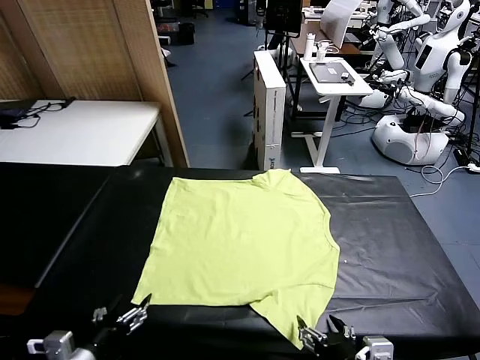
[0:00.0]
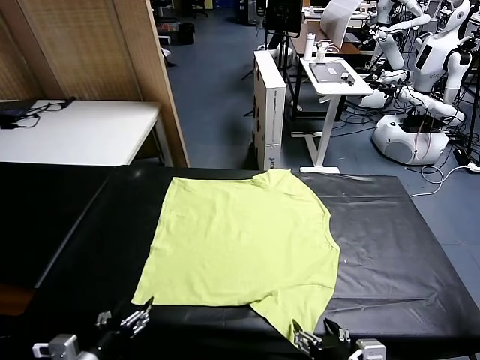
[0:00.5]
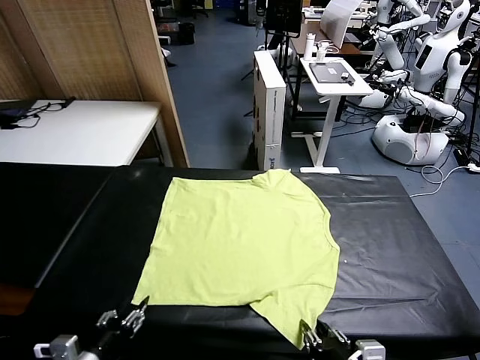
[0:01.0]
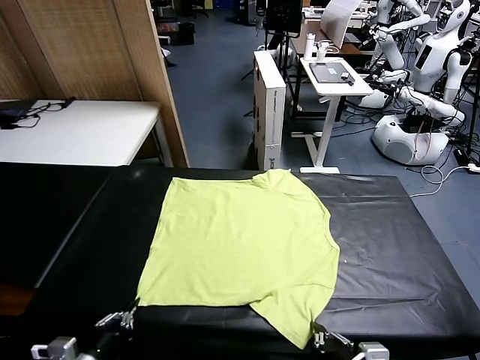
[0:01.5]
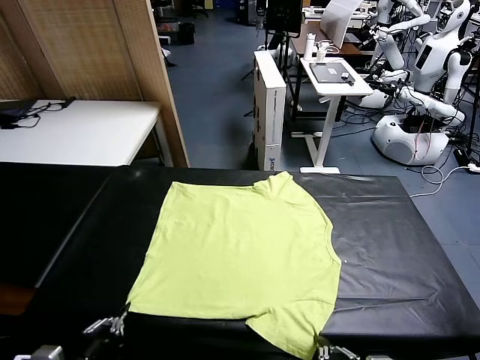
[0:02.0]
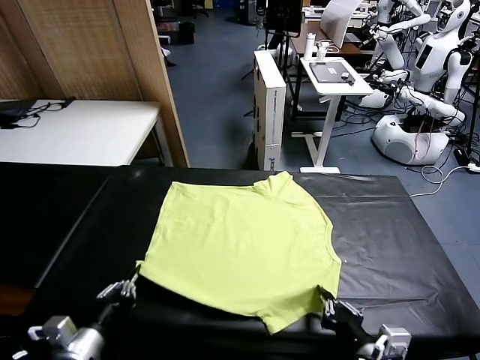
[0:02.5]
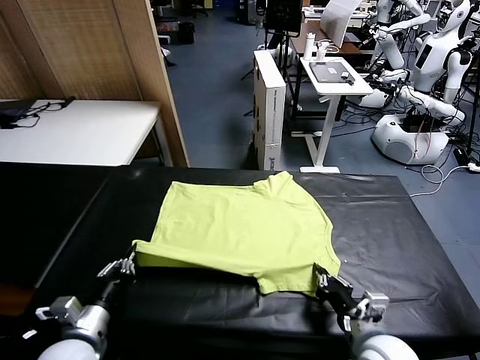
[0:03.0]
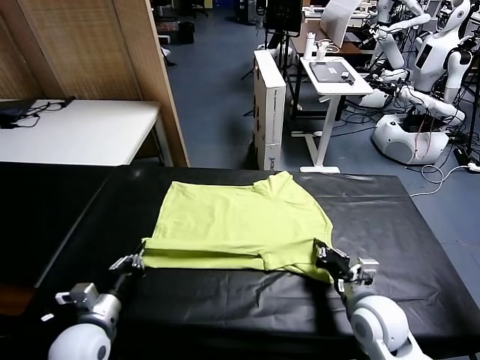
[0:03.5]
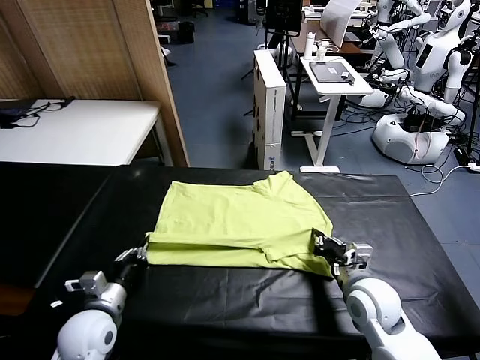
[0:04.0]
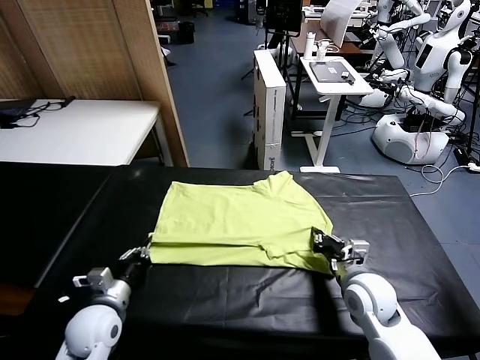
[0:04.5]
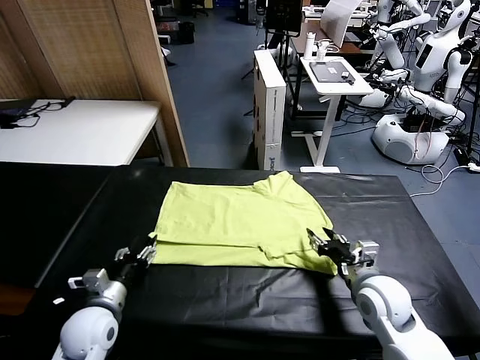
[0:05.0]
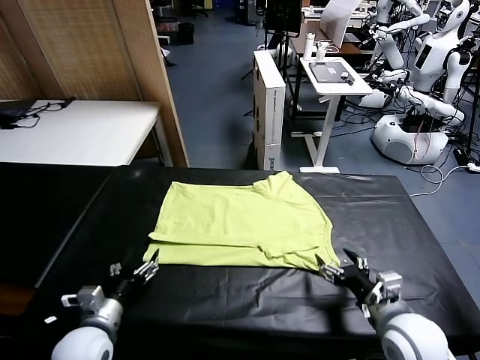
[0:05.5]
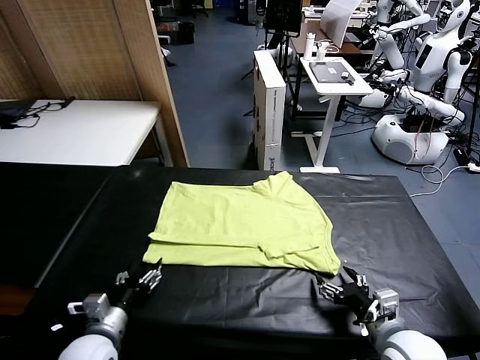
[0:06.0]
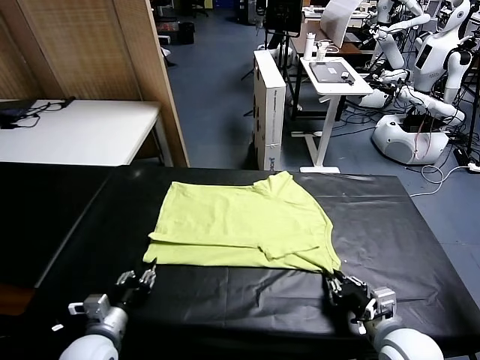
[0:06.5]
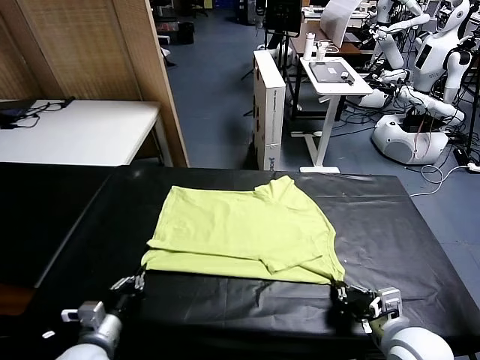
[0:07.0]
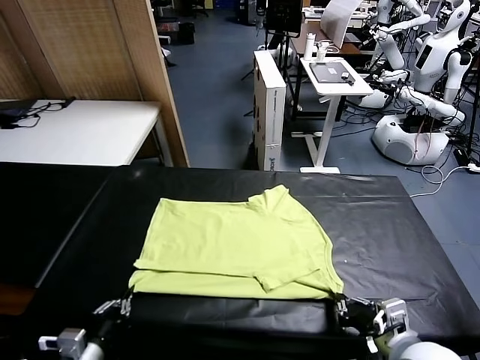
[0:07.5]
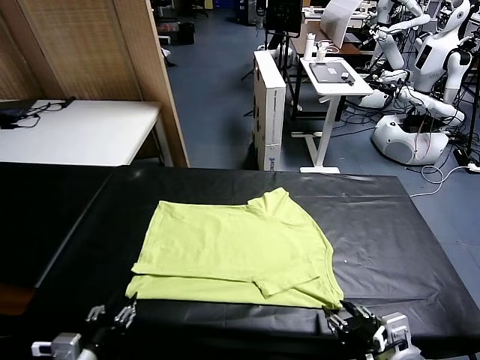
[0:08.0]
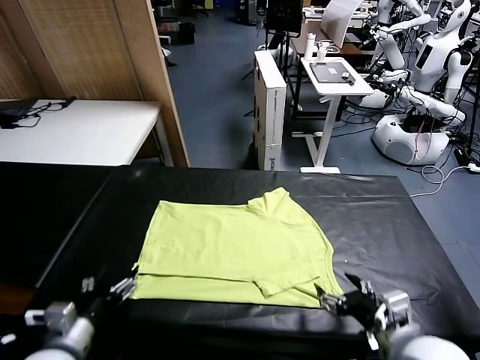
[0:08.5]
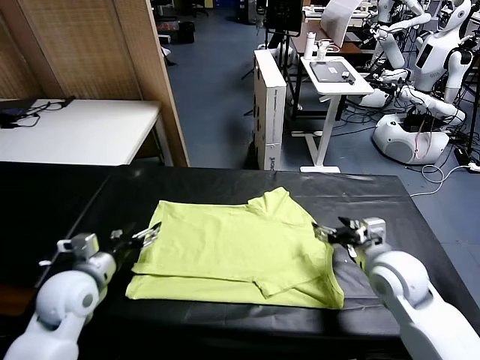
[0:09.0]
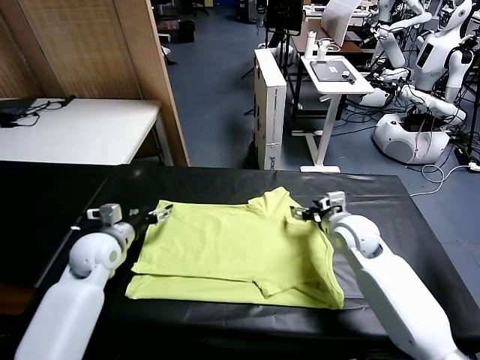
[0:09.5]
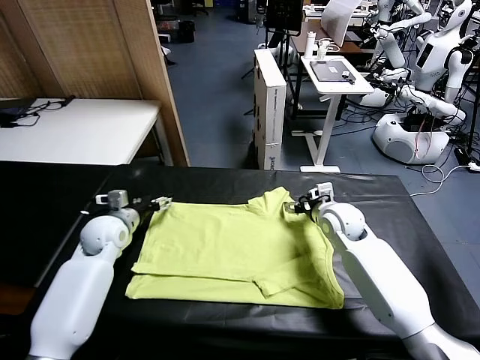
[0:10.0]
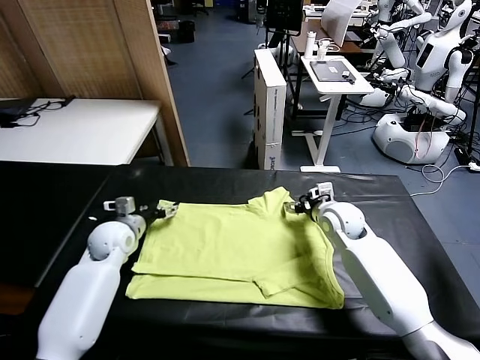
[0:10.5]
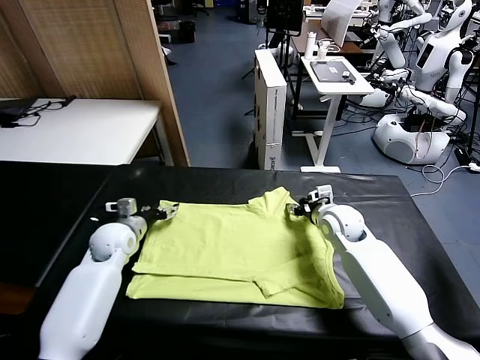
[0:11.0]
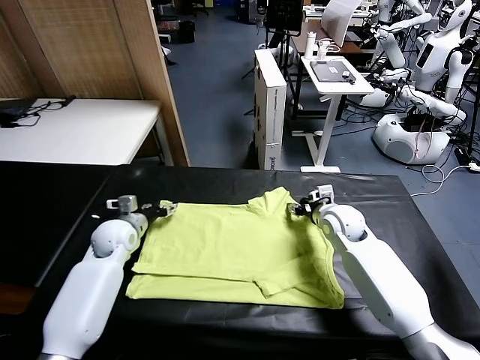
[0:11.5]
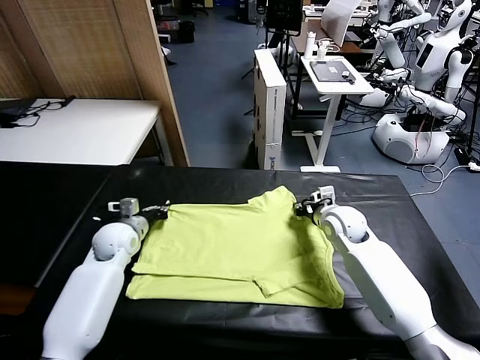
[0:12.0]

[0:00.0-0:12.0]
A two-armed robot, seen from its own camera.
Task of the whole recording: fold and organize the clothes.
Step, 0:00.0 to 0:01.5: use both grippers simultaneously to clamp the lower edge of the clothing fabric.
Step, 0:02.0 to 0:05.0: use both grippers to drag the lower edge of the fabric forward and fold it over the upper edge.
Step, 0:05.5 to 0:08.0: Drag the clothes downward with both gripper.
Step, 0:08.5 to 0:12.0: use both grippers simultaneously to clamp the upper edge of the clothing fabric.
0:02.0 to 0:04.0: Both grippers move forward, about 20 cm.
0:04.0 to 0:06.0: The right gripper shifts about 10 cm backward, and opens its fingers, while the left gripper opens up.
0:06.0 to 0:08.0: The left gripper is displaced backward by approximately 10 cm, and closes, then reopens. The right gripper travels upward and backward by approximately 10 cm, and closes and opens again.
0:08.0 to 0:10.0: The grippers both shift forward by some 35 cm.
0:10.0 to 0:12.0: The left gripper closes; the right gripper closes its fingers.

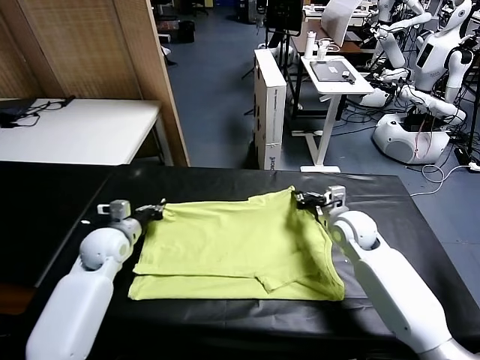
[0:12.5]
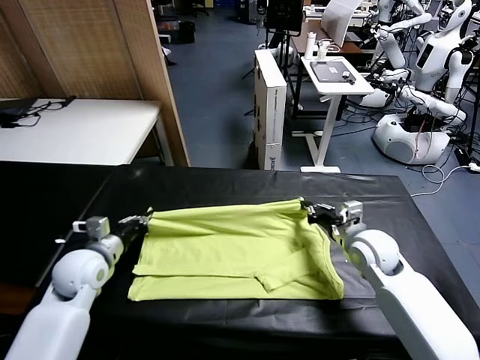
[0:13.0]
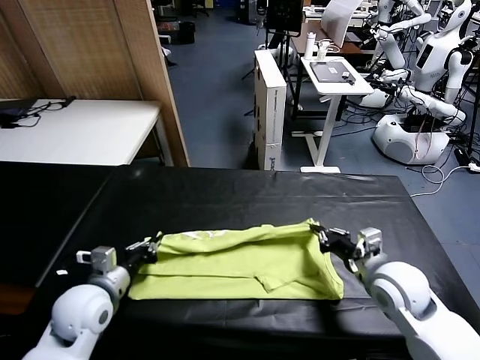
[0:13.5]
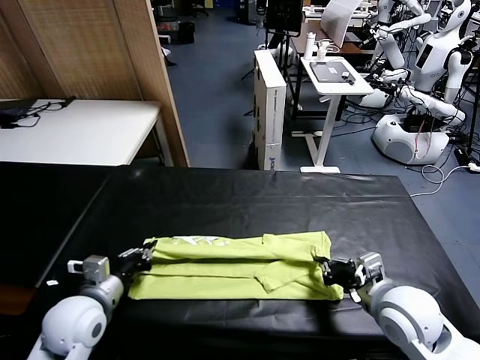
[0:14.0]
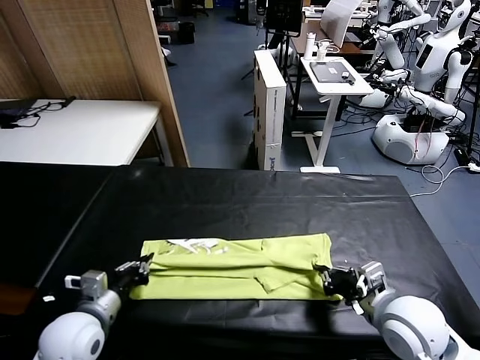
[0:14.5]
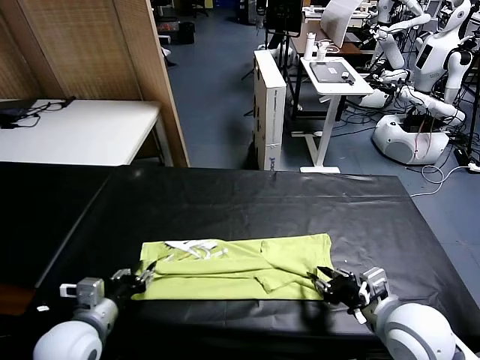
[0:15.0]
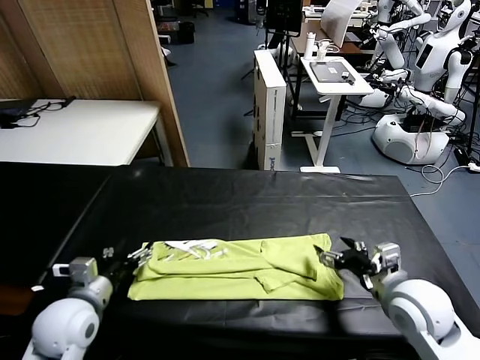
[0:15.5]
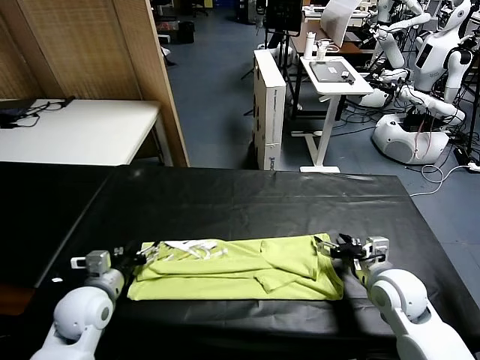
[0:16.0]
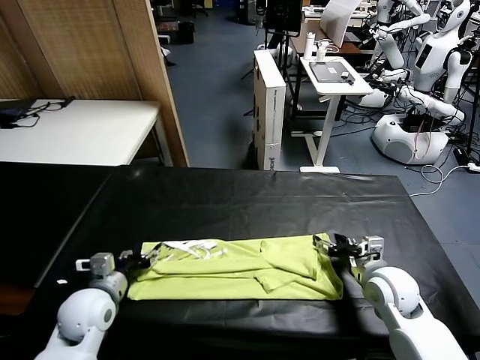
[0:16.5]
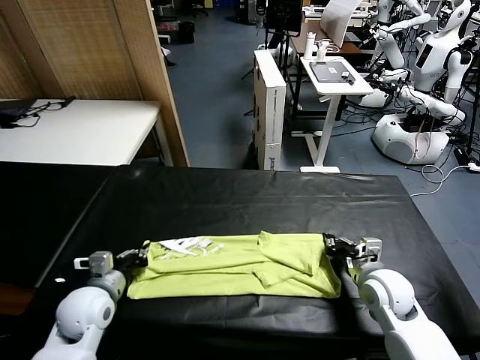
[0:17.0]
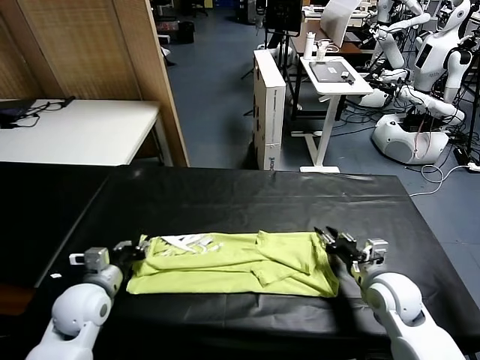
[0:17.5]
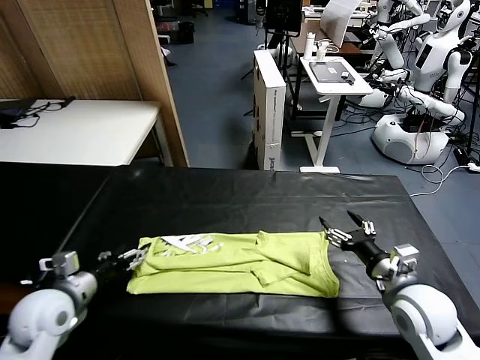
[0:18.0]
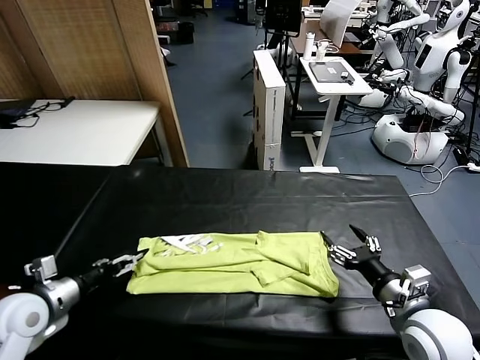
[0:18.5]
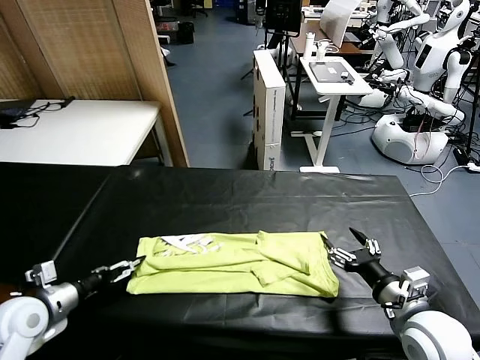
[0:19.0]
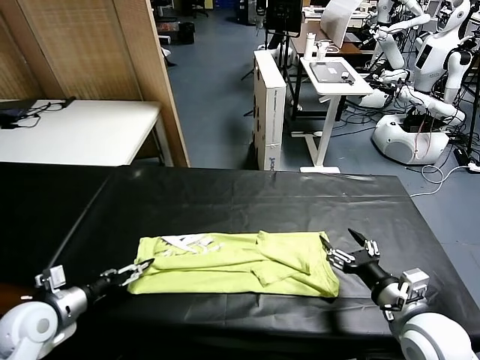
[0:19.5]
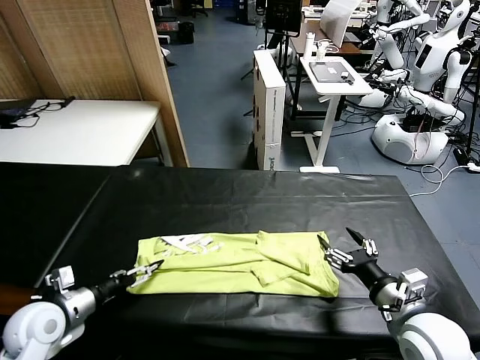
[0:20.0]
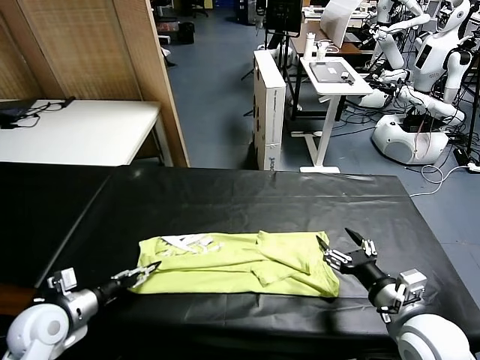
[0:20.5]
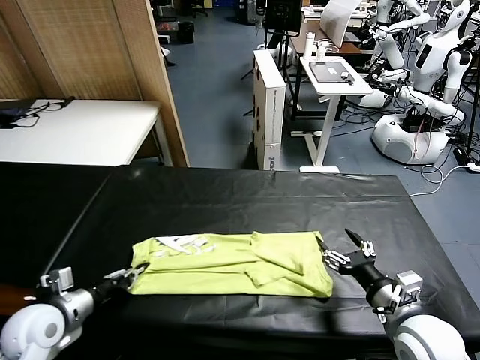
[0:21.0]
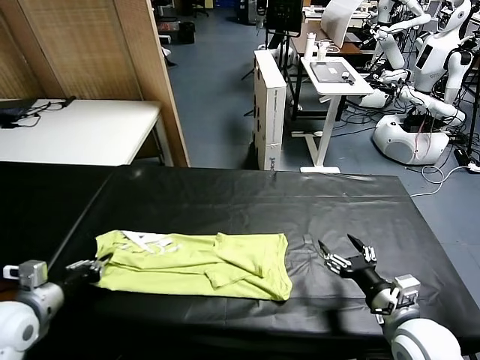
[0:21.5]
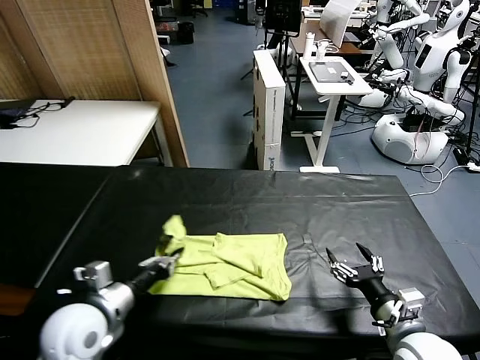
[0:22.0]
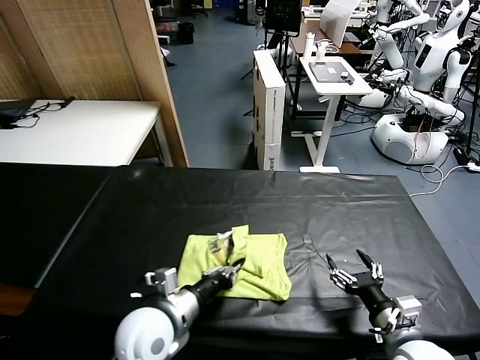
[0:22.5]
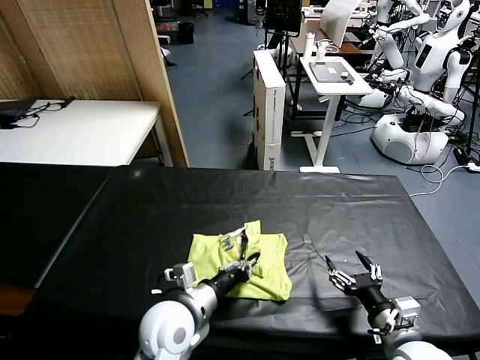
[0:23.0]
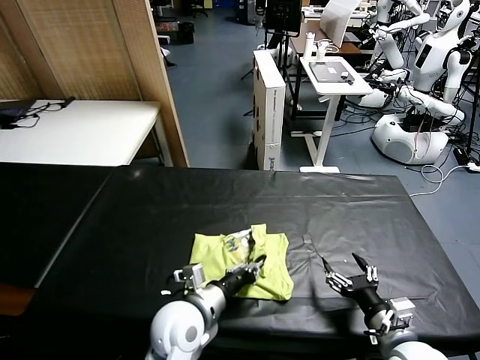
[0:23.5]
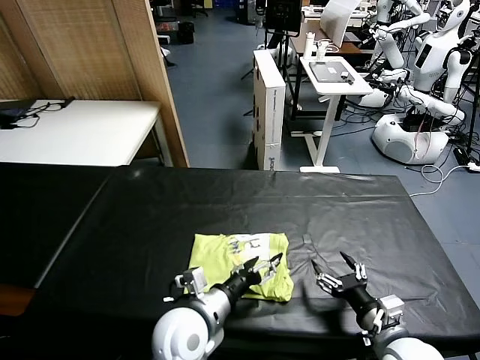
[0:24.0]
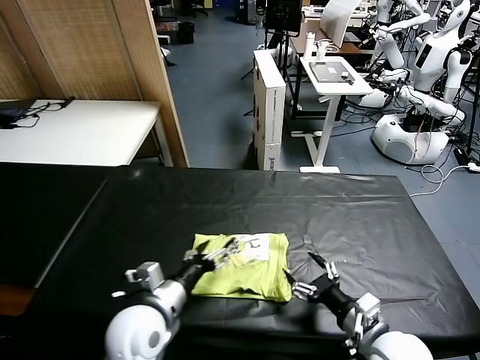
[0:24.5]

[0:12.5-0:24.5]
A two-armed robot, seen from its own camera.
Task of the whole recording: fold and organize the clothes.
Step, 0:12.5 to 0:15.0: use both grippers to drag the upper edge of the fabric backward and fold it over the lower edge.
Step, 0:15.5 to 0:20.5: use the left gripper to clamp the left edge of the fabric.
Step, 0:21.0 to 0:24.0: use the left gripper to drag the left edge of the fabric to the left and folds it over the right edge.
0:12.5 to 0:14.5: Both grippers travel together backward, roughly 20 cm.
0:14.5 to 0:16.5: The right gripper goes approximately 10 cm forward and downward, and opens up, while the left gripper travels forward by about 5 cm, and opens up.
0:16.5 to 0:18.5: The left gripper heads to the left and upward, covering roughly 10 cm, and opens up. The right gripper moves backward and upward, some 10 cm, and closes, then reopens.
0:18.5 to 0:20.5: The left gripper changes place by approximately 5 cm, and closes up.
0:20.5 to 0:22.5: The left gripper shifts some 20 cm to the right, and closes up. The right gripper changes place by roughly 5 cm.
0:22.5 to 0:24.5: The left gripper opens its fingers.

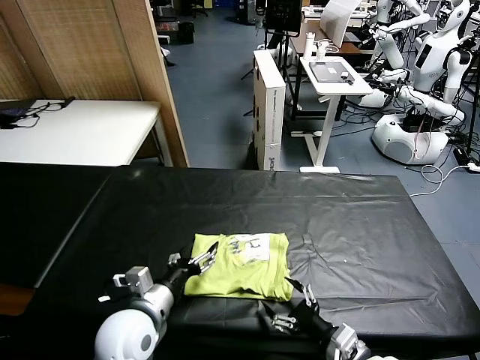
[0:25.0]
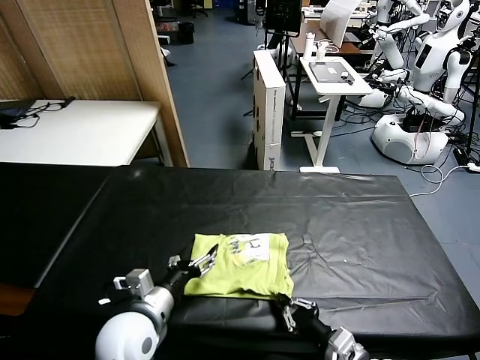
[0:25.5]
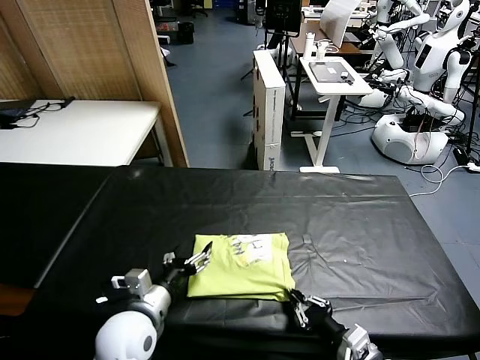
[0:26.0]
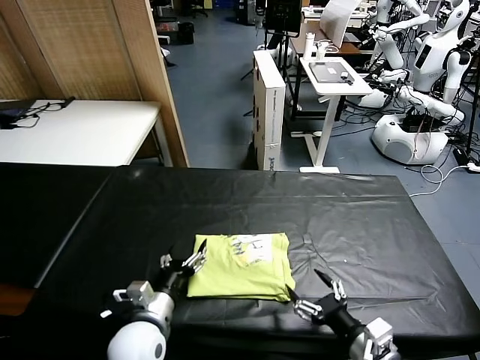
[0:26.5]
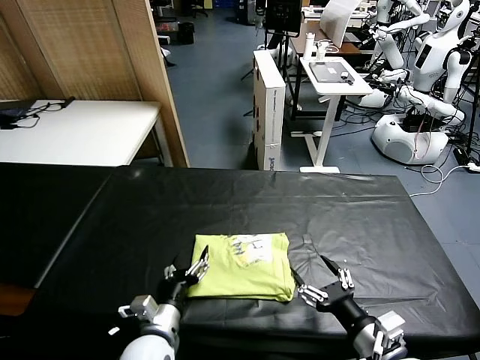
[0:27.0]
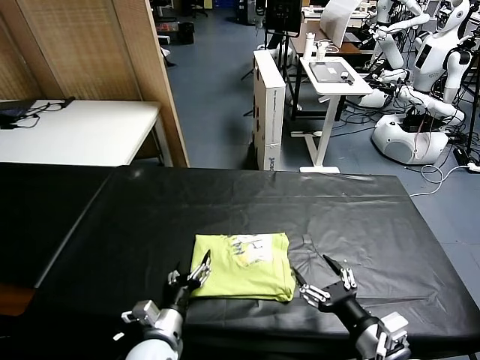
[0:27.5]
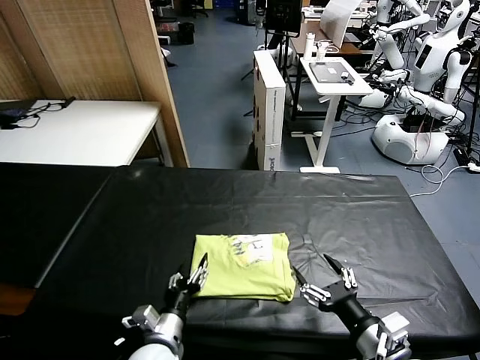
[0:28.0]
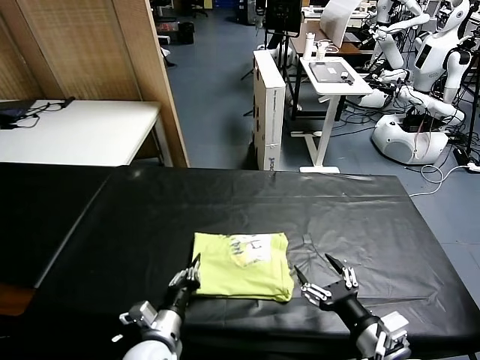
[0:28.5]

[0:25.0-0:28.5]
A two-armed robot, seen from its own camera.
Task of the whole recording: fold and organize the clothes.
0:25.0 to 0:27.0: The left gripper shifts approximately 10 cm downward, while the right gripper goes some 5 cm upward, and closes, then opens again.
0:27.0 to 0:28.5: The left gripper closes up.
